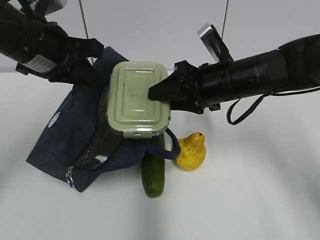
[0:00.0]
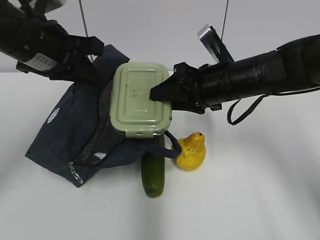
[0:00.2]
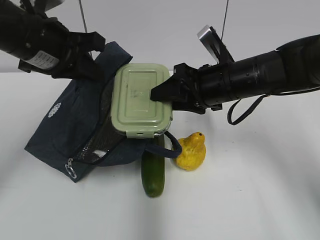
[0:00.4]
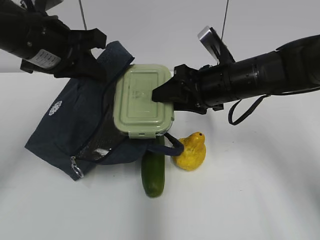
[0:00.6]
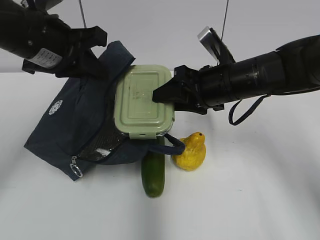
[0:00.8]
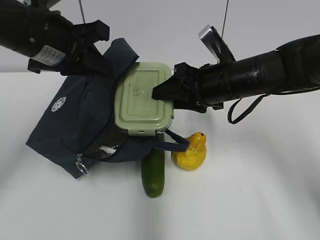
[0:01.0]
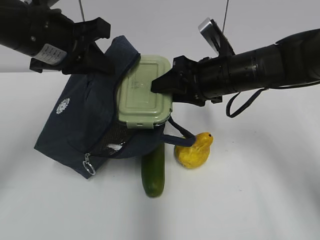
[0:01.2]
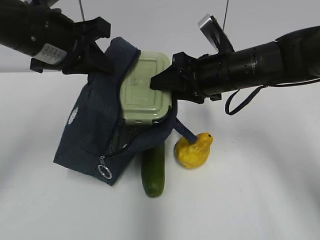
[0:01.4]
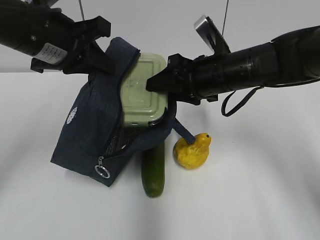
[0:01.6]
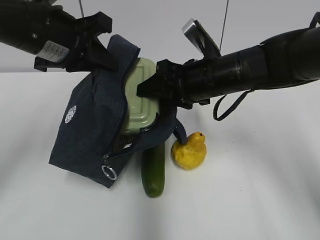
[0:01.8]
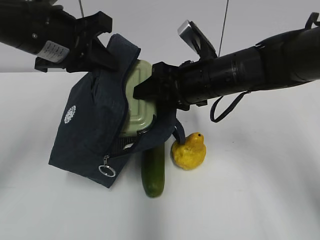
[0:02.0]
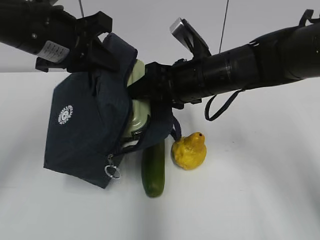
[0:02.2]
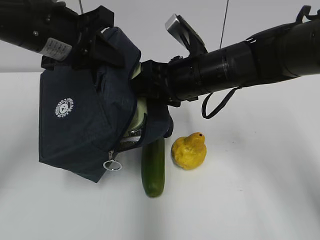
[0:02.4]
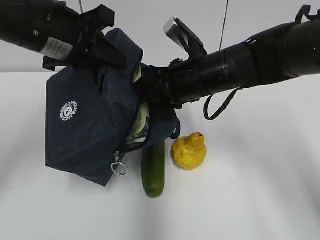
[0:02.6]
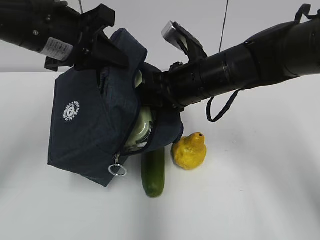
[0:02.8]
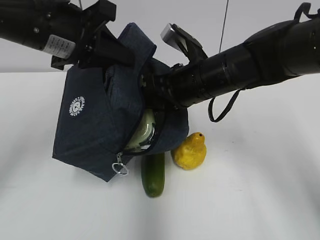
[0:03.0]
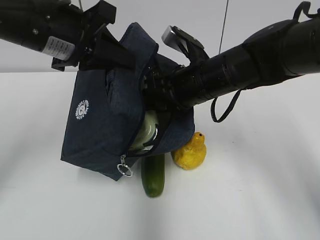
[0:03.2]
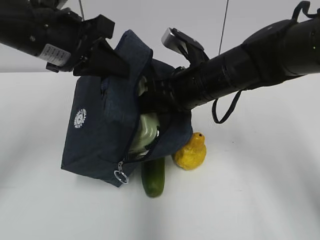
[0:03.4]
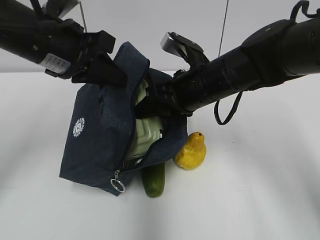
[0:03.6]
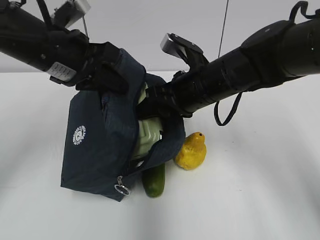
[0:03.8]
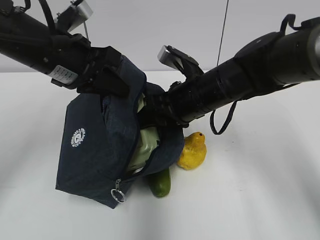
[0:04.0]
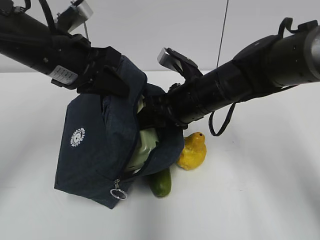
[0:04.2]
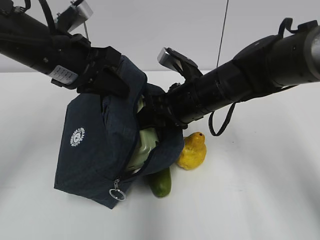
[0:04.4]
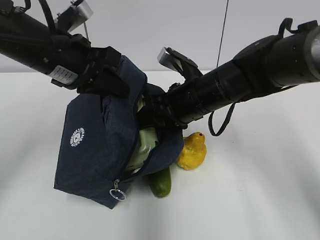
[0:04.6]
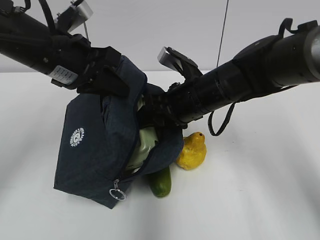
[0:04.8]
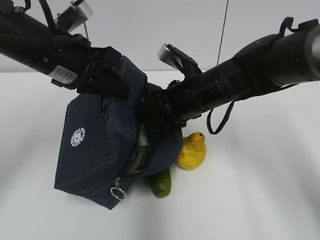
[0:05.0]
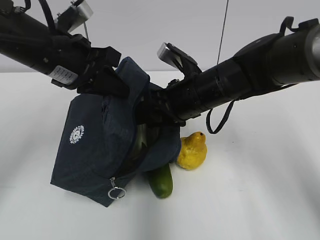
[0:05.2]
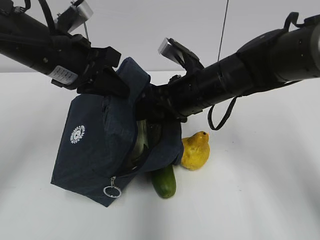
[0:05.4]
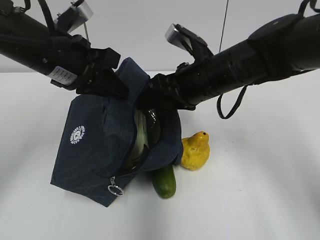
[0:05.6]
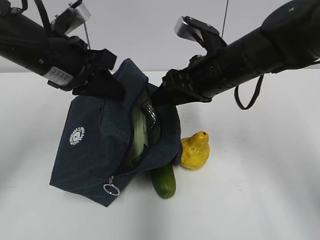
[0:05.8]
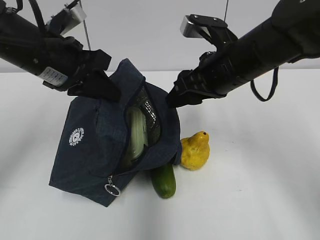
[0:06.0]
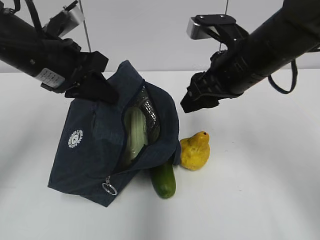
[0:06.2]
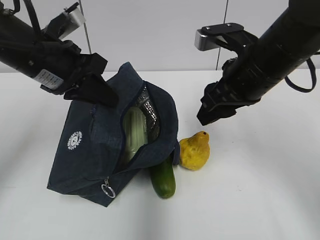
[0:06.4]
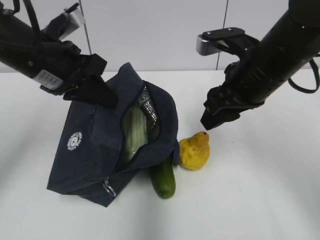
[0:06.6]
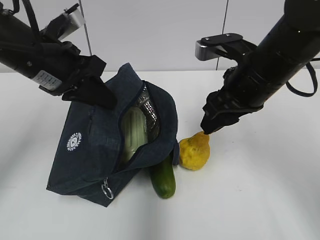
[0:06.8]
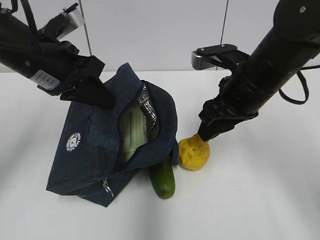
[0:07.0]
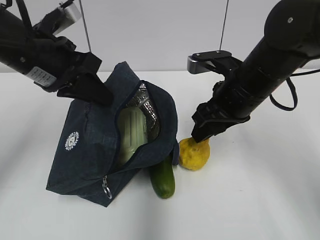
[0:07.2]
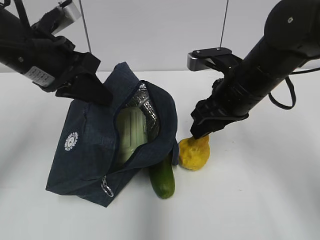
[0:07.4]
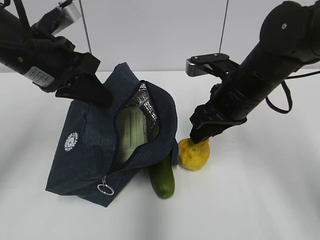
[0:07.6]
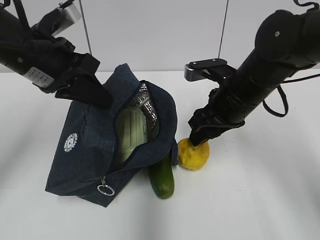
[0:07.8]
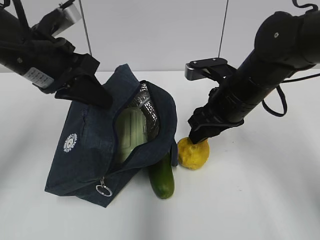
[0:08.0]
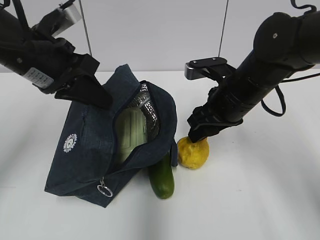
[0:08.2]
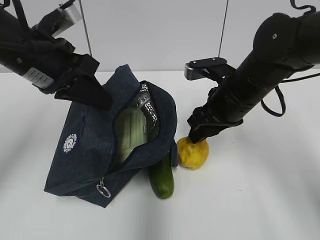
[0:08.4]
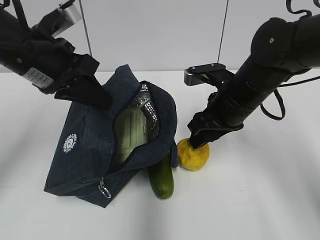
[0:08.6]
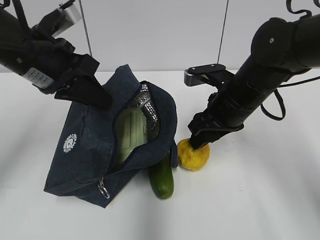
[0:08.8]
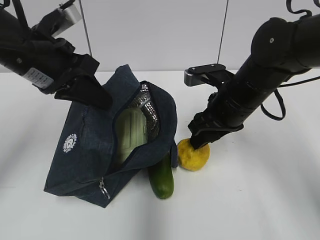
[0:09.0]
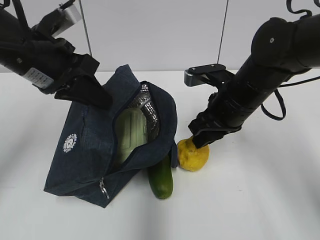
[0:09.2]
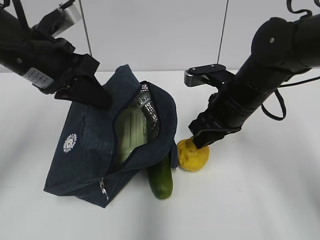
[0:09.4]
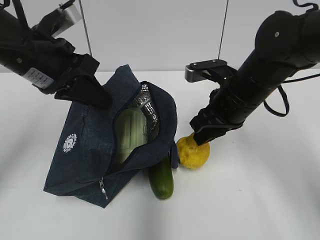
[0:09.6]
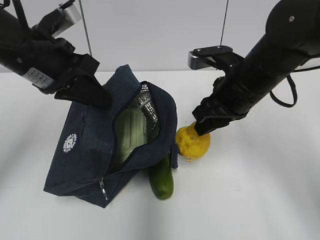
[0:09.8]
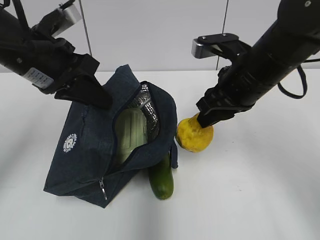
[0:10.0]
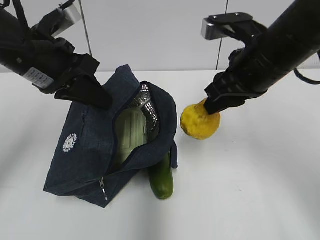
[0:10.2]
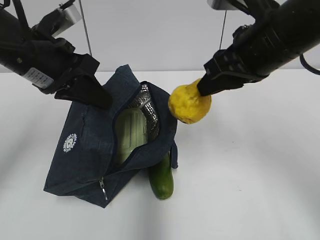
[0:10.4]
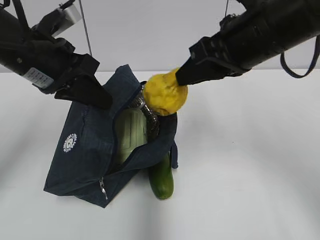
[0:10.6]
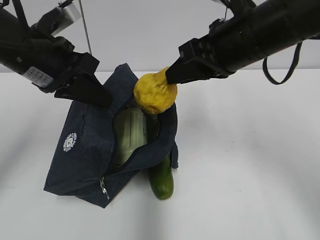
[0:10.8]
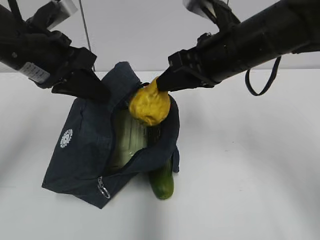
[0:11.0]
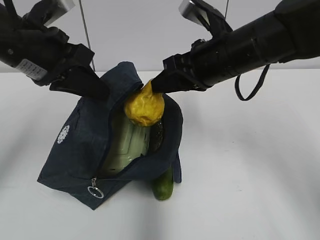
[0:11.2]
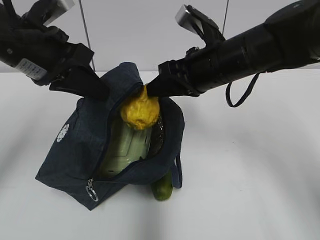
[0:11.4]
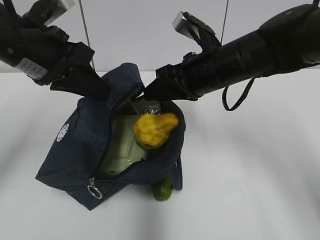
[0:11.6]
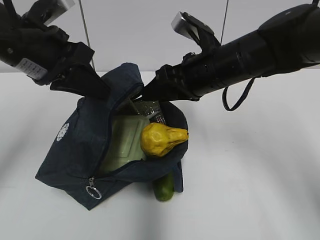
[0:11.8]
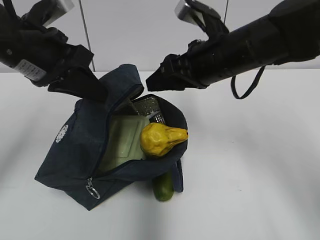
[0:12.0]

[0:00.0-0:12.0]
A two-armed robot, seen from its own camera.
Step, 0:00.0 to 0:05.4: Place it into the bag with your right hand.
Step, 0:05.8 to 0:08.8: Grab the pear with your right hand.
Step, 0:09.0 to 0:11.8: Place it into the bag with your right hand.
0:04.4 to 0:06.0: The right gripper heads upward, covering roughly 5 cm.
0:07.6 to 0:09.0: The grippers make only small movements.
0:09.0 to 0:10.4: The right gripper is displaced upward by some 10 cm.
0:10.4 to 0:12.0: The right gripper shifts by some 5 cm.

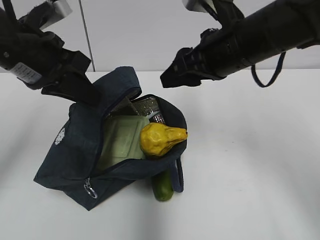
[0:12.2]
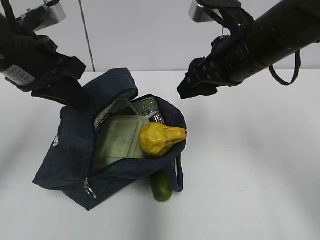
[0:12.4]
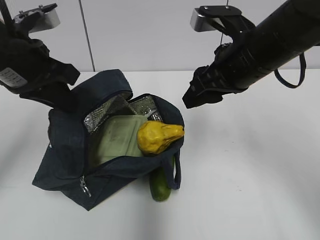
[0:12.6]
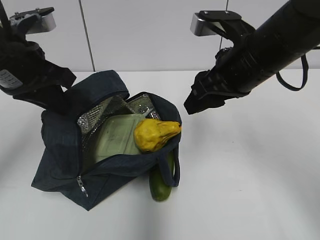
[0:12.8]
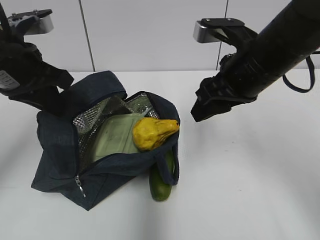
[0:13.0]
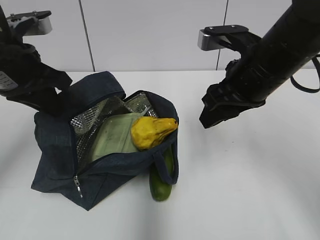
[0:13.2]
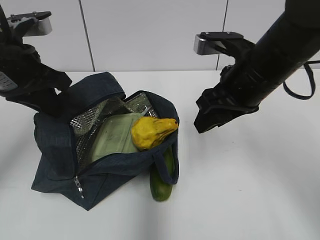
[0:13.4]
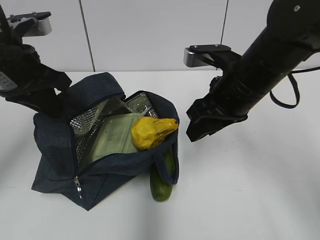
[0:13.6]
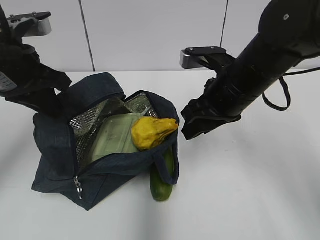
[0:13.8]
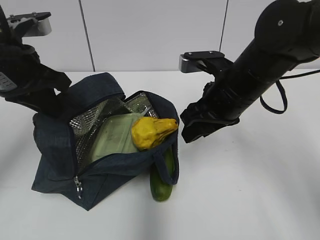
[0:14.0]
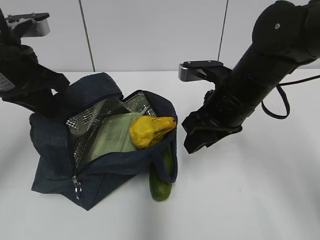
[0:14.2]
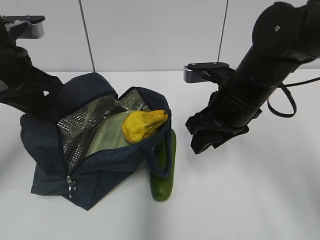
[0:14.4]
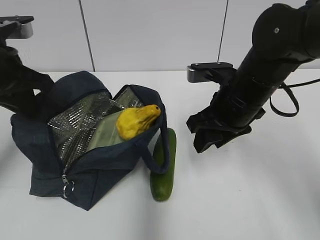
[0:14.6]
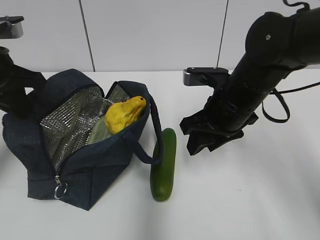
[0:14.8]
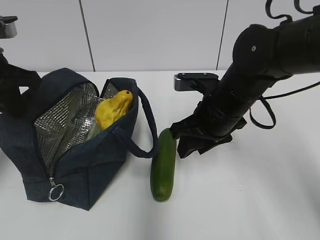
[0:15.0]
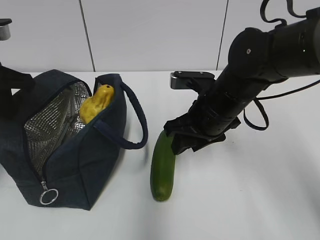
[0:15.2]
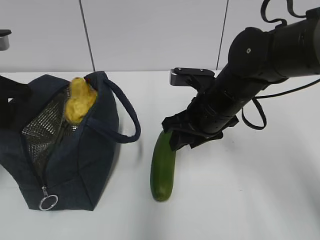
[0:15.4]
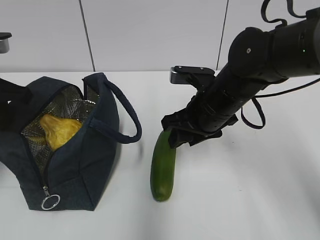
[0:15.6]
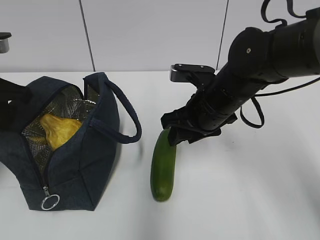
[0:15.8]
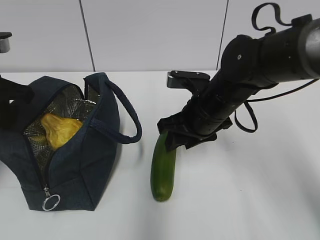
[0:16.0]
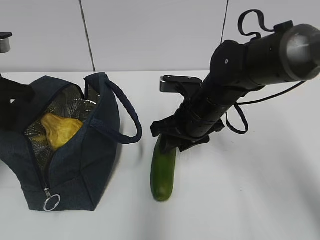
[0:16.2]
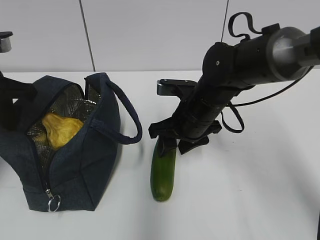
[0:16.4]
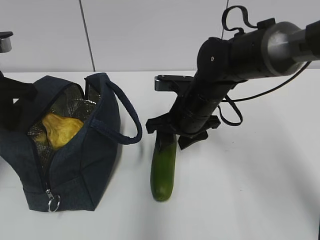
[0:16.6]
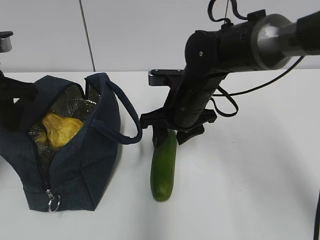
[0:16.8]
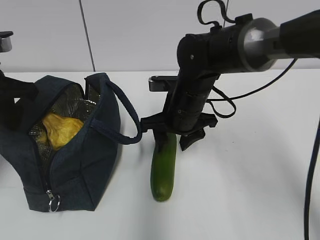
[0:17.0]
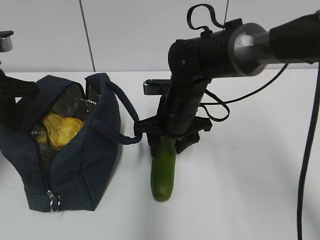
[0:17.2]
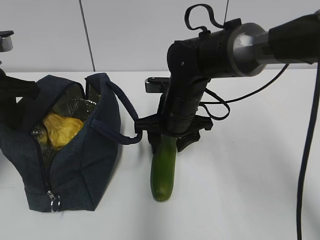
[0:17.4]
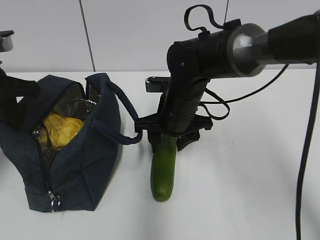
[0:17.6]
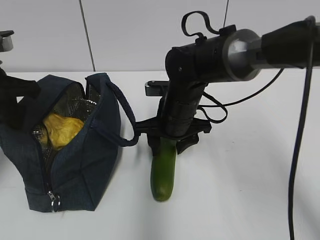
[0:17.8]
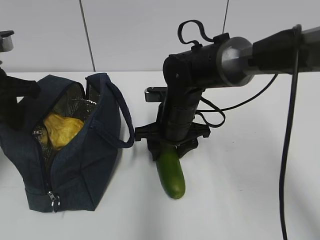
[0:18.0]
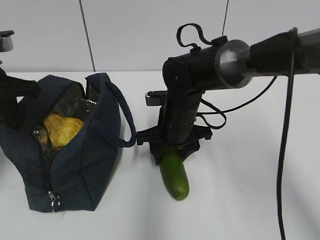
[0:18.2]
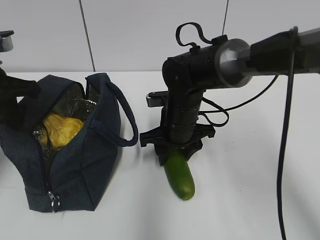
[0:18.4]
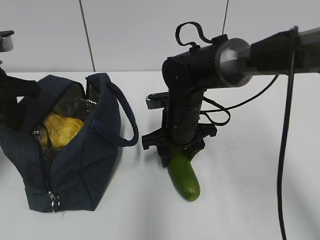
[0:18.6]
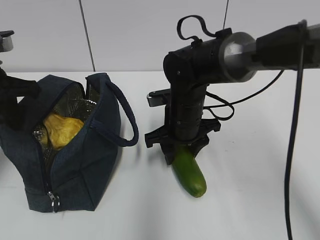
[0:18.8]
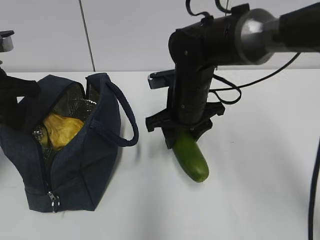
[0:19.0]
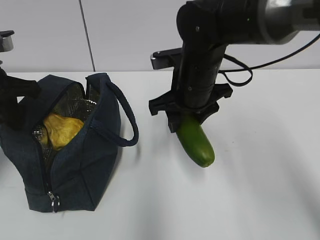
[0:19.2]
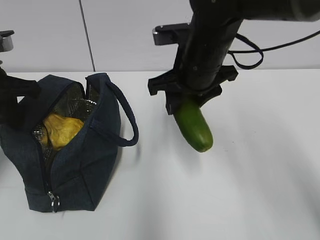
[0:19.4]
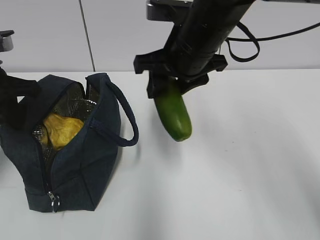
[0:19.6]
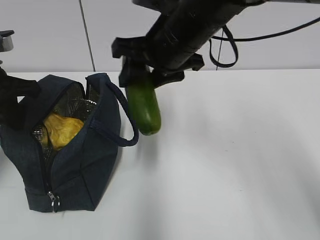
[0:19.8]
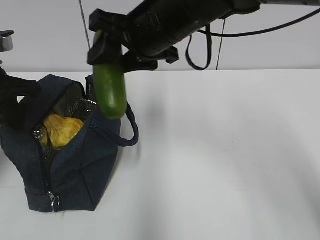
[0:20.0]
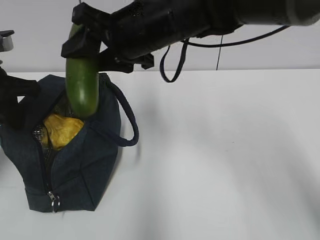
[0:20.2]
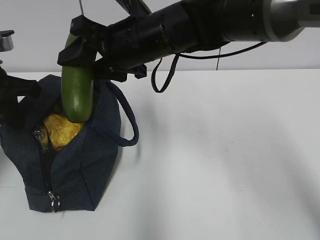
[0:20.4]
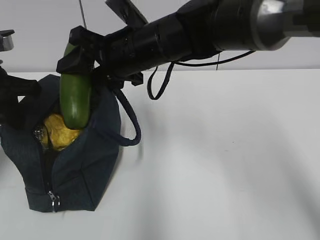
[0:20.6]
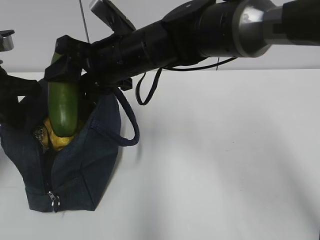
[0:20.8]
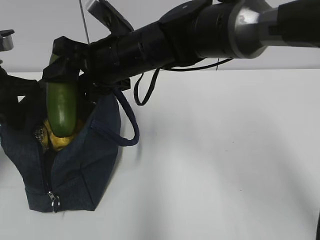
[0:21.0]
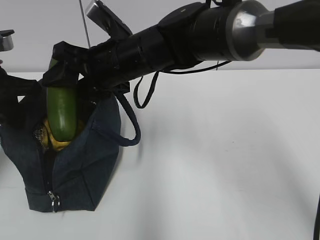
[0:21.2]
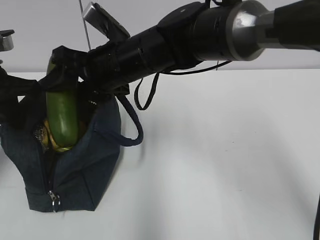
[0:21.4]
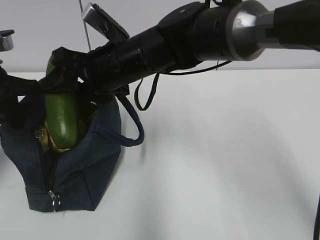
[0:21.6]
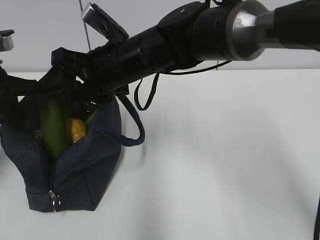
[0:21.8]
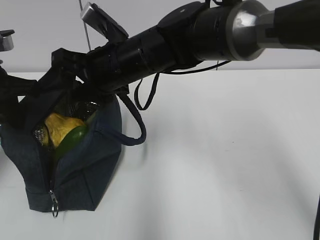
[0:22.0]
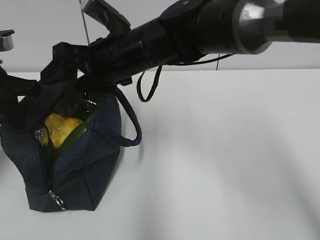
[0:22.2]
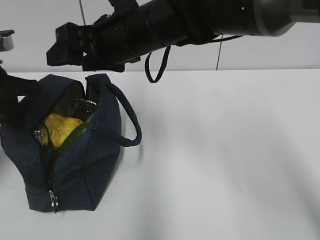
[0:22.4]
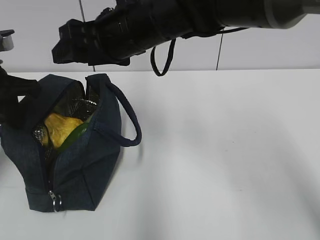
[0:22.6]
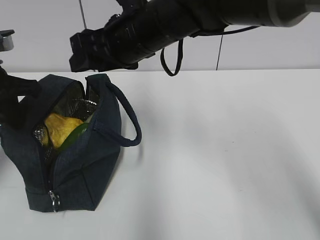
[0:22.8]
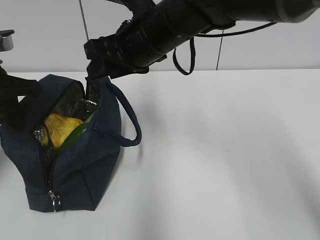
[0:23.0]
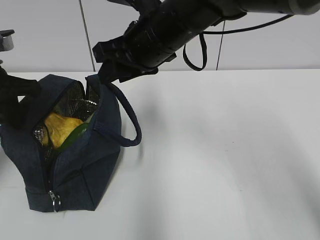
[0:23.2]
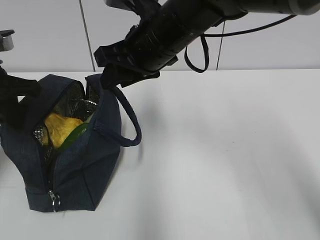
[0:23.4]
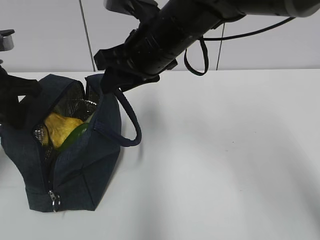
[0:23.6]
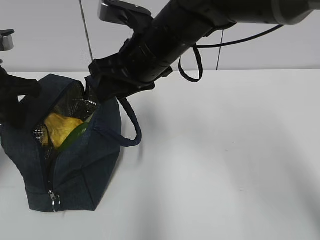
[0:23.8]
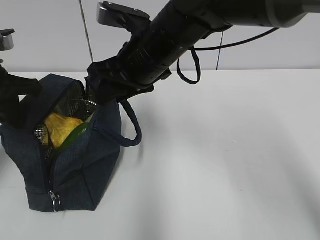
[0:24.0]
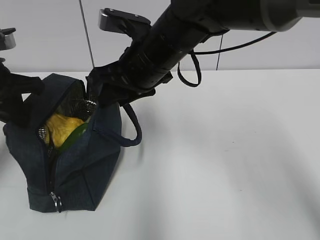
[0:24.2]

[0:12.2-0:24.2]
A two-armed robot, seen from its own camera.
Step, 0:12.2 to 0:18.2: Grab the cucumber with your right hand.
0:12.2 to 0:13.8: The right gripper is displaced downward by some 5 cm.
0:13.8 to 0:15.2: The left gripper moves to the left, some 5 cm.
0:16.6 to 0:18.2: The grippers stay close to where they were, moving slightly.
0:18.2 to 0:19.8: The right gripper goes about 15 cm upward.
0:19.8 to 0:21.2: The right gripper goes some 10 cm to the left.
0:21.2 to 0:22.6: The right gripper moves some 5 cm.
0:22.6 to 0:24.2: The right gripper closes up.
